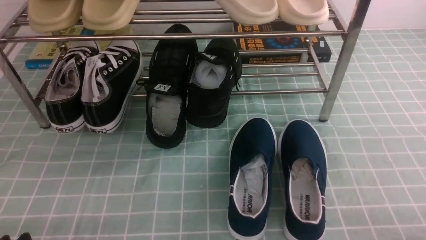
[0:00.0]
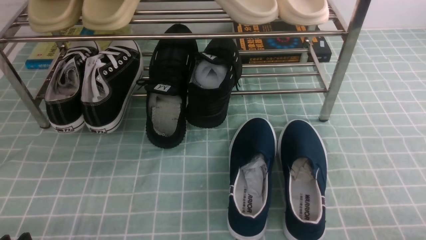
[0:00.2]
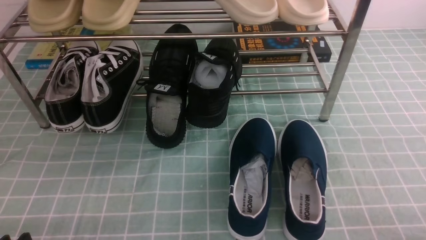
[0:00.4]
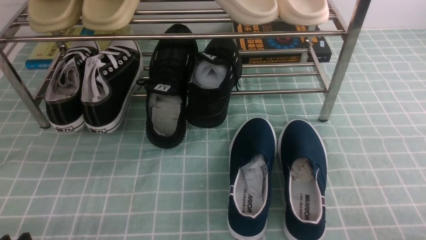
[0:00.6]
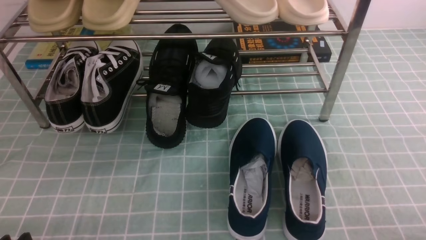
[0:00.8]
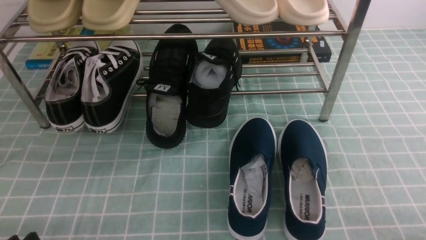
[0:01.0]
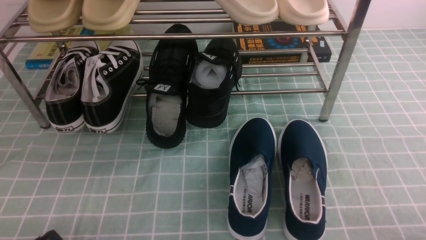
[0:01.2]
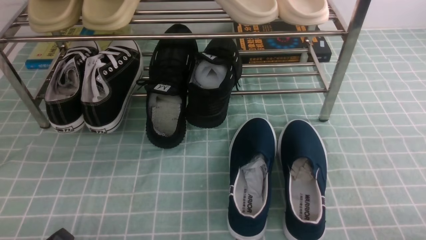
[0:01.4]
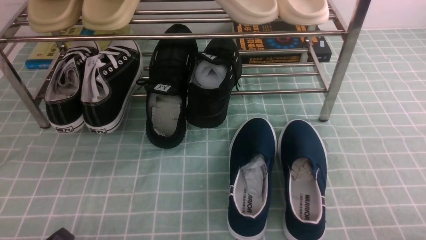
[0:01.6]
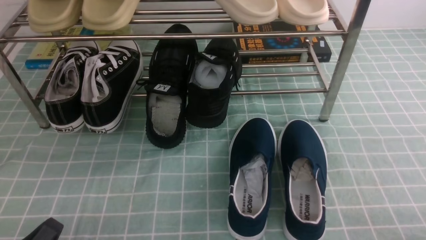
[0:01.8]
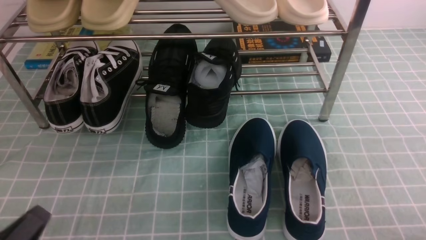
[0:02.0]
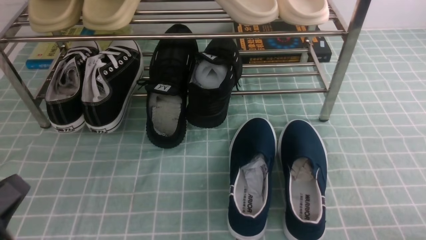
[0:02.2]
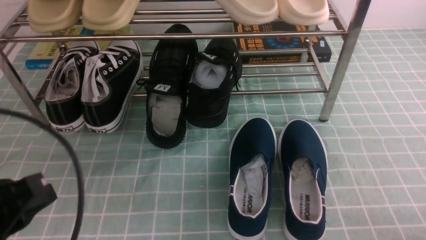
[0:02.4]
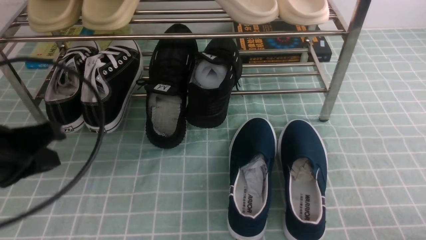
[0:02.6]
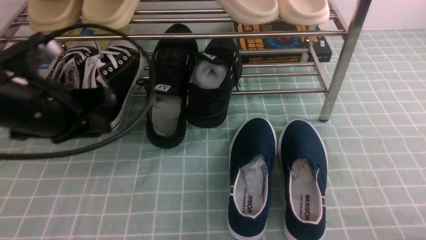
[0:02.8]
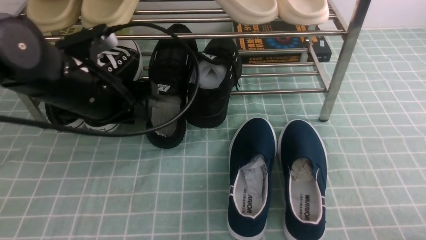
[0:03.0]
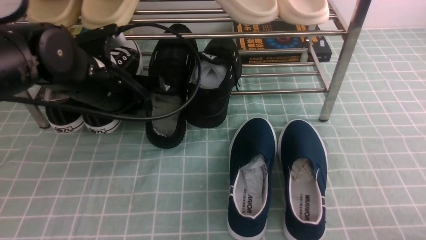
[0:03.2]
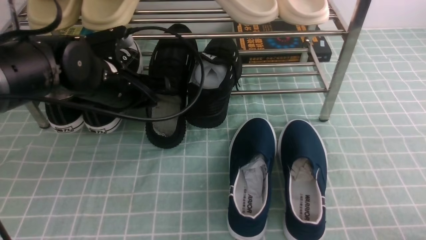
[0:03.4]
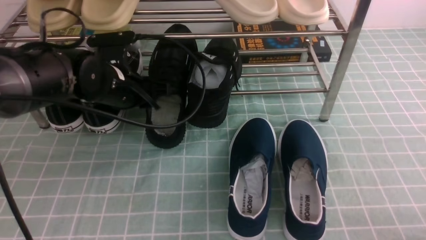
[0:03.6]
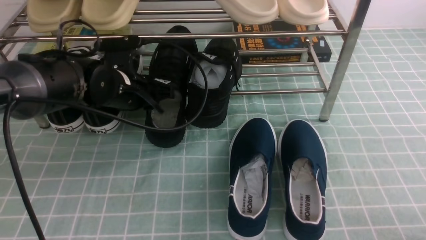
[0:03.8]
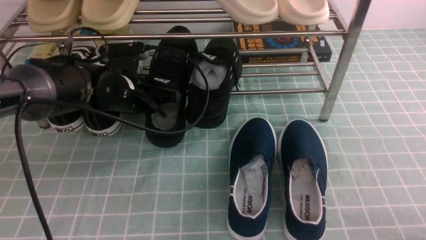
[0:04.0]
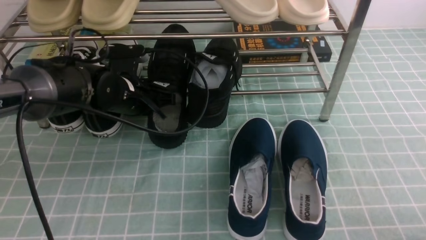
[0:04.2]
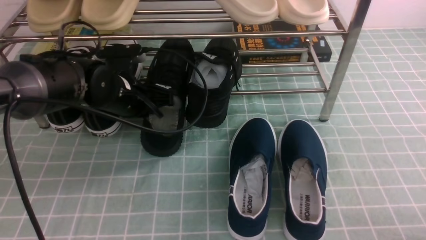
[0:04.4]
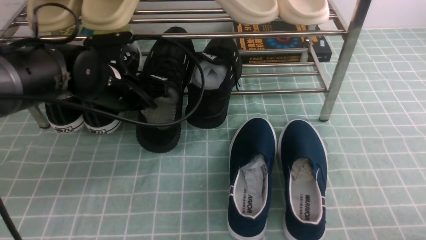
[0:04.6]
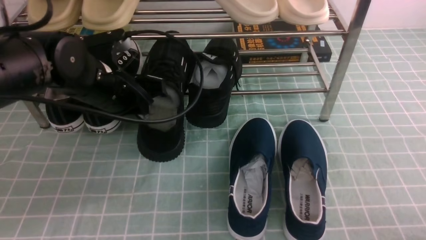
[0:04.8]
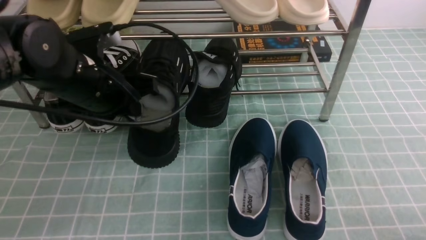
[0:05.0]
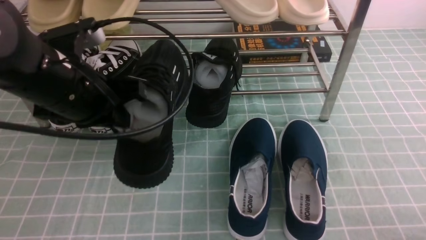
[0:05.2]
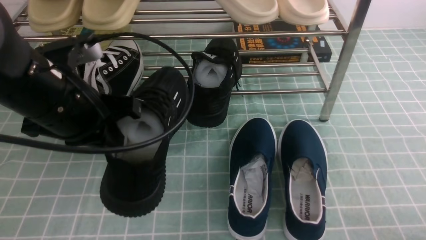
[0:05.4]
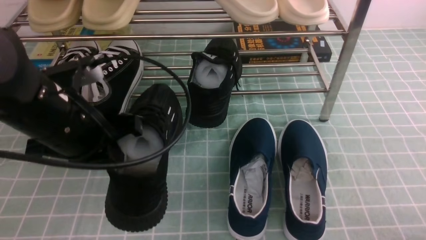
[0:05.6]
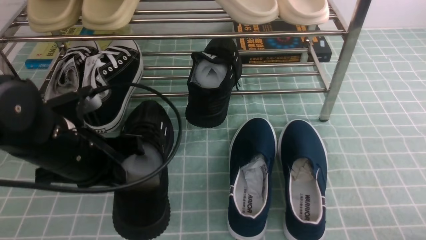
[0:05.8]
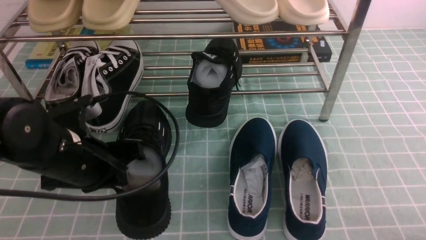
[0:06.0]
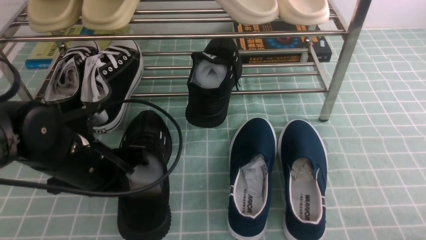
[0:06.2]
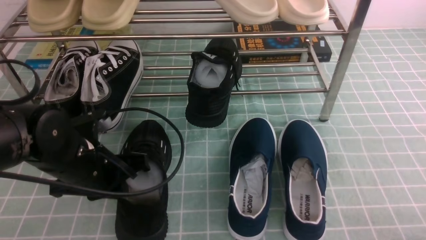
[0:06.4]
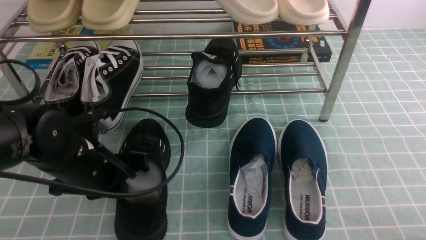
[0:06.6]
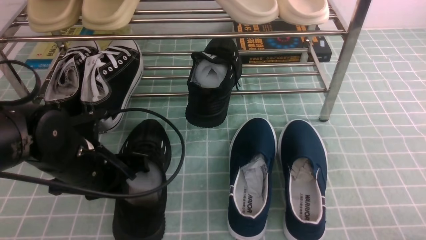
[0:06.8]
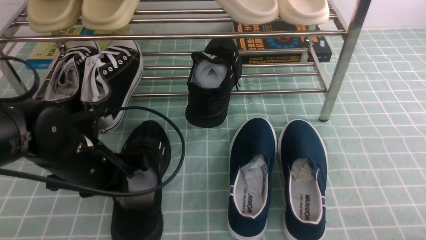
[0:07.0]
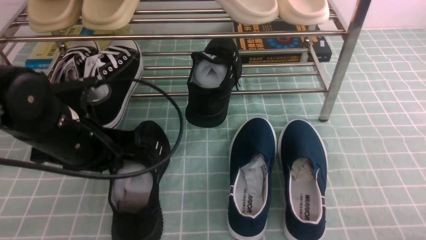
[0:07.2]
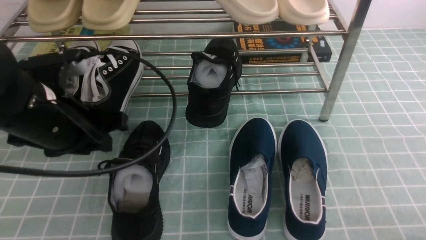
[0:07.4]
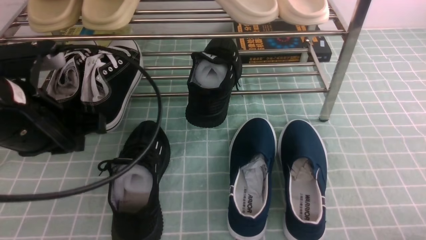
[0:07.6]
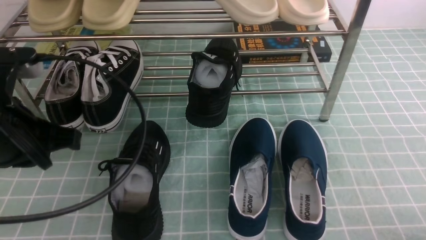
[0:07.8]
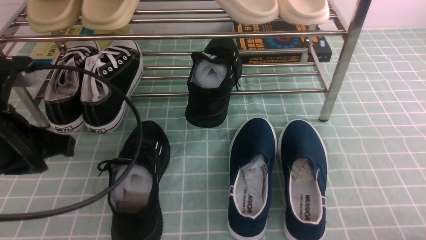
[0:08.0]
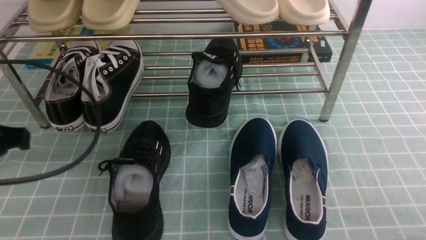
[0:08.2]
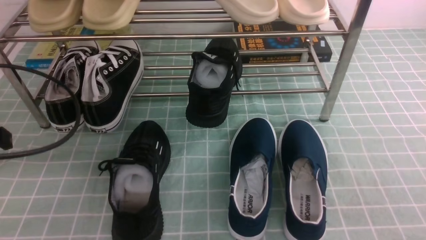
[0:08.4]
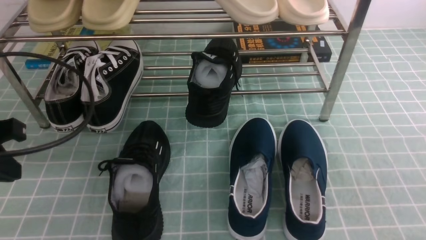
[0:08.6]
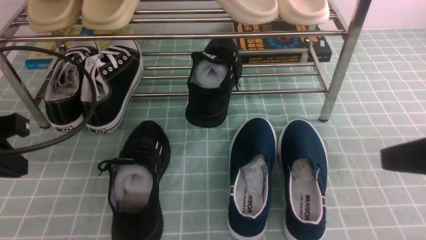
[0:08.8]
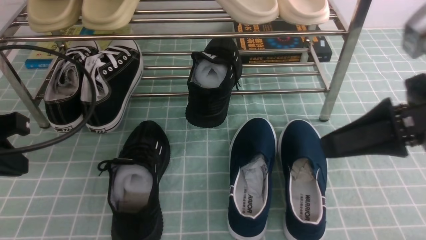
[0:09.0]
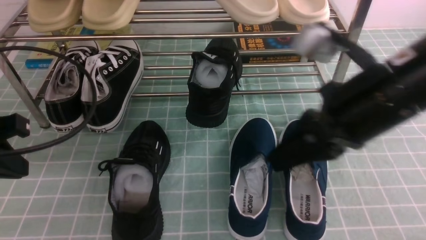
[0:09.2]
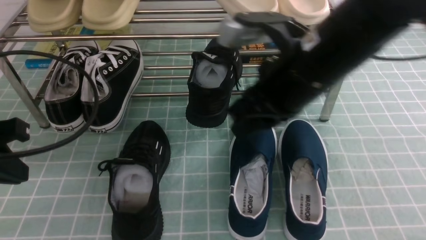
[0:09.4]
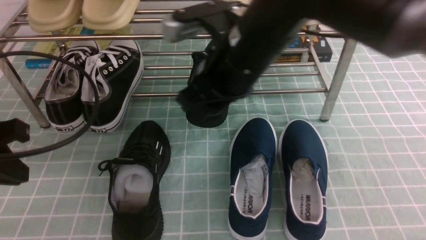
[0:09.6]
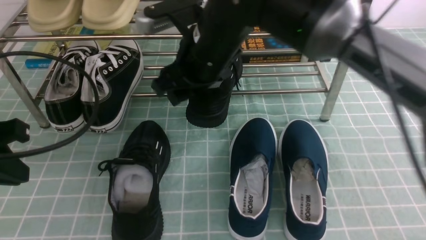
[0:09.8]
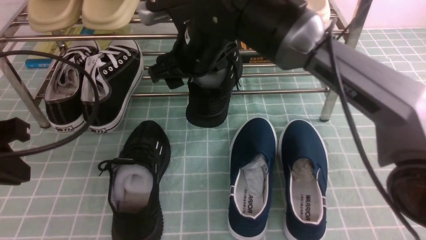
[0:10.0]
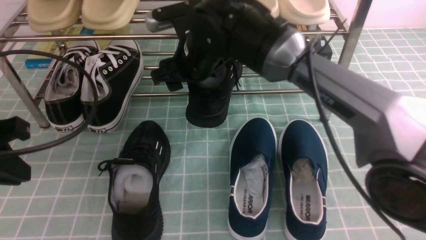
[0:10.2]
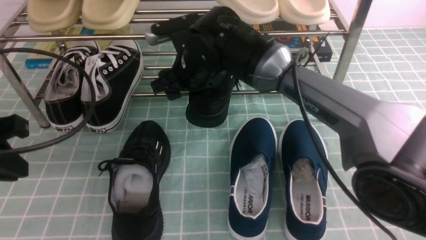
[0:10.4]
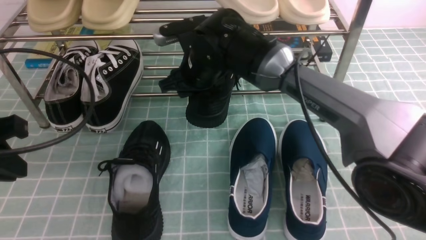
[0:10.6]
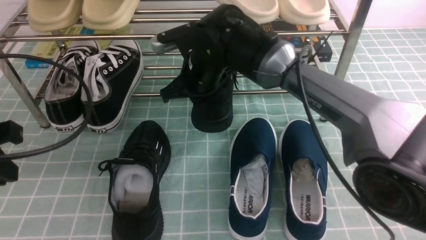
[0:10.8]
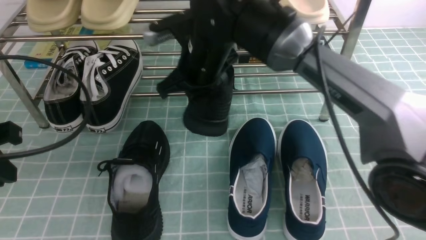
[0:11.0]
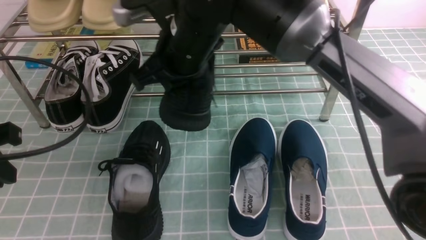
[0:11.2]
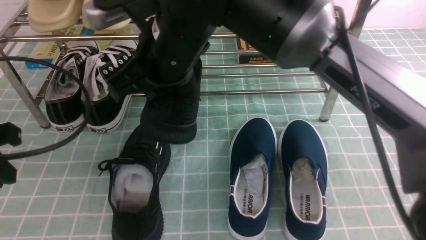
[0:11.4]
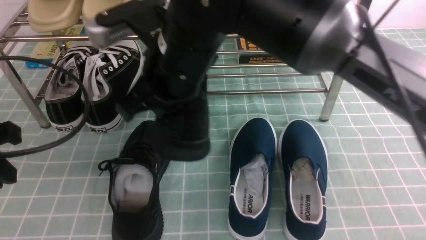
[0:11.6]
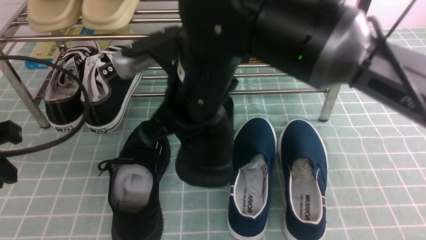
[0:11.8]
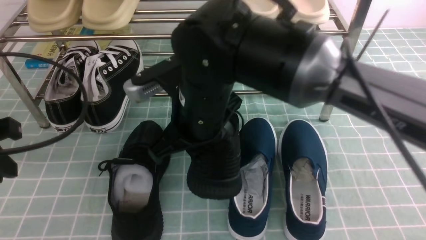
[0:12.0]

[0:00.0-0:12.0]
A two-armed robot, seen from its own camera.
Step, 0:00.0 to 0:04.2: use the left arm to clamp a shoe in the middle of the shoe rack.
Step, 0:04.4 to 0:07.2: Use your left arm to remove the clamped shoe from the shoe rack and put it down.
Step, 0:07.4 to 0:10.6: use the right arm to clamp a shoe in the middle of the shoe rack.
0:01.6 to 0:03.0: The left gripper is displaced forward and upward by about 25 cm, and closes and opens again.
0:03.0 to 0:04.4: The left gripper travels forward and downward by approximately 10 cm, and closes up.
0:04.4 to 0:06.0: The left gripper heads backward, covering about 10 cm.
0:06.0 to 0:07.6: The left gripper shifts some 10 cm upward, and opens.
0:07.6 to 0:09.0: The right gripper heads upward, forward and to the left, covering roughly 25 cm, and closes its fingers. Meanwhile the left gripper shifts about 10 cm to the left, and closes.
0:09.0 to 0:10.4: The right gripper is displaced to the left, forward and downward by roughly 35 cm, and opens up.
0:10.4 to 0:12.0: The right gripper is displaced backward by about 15 cm, and closes.

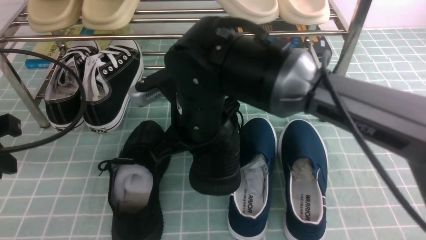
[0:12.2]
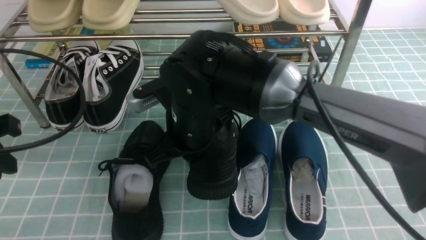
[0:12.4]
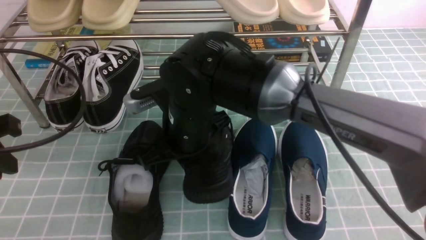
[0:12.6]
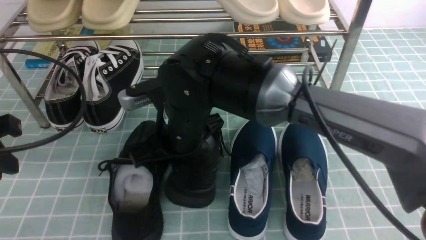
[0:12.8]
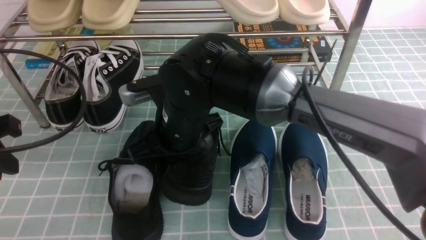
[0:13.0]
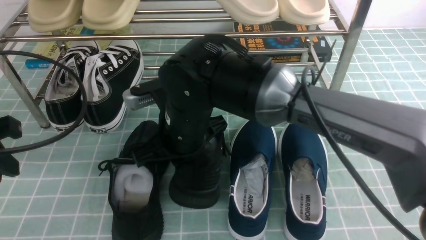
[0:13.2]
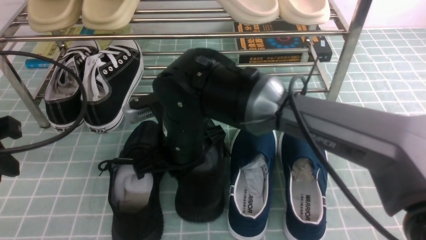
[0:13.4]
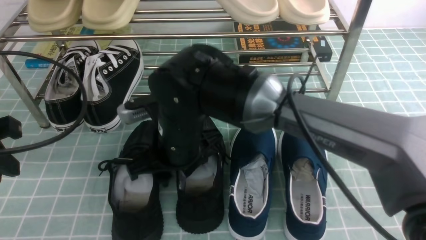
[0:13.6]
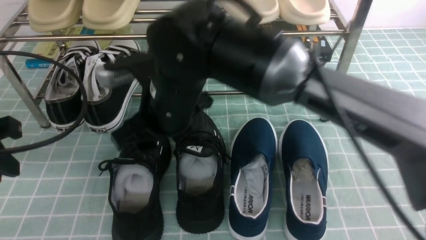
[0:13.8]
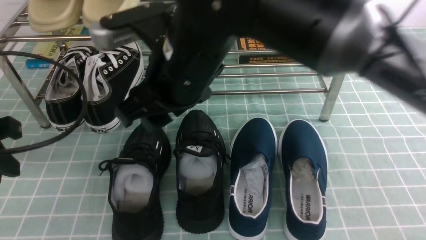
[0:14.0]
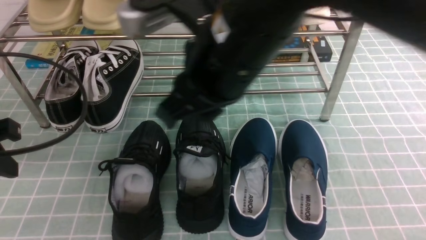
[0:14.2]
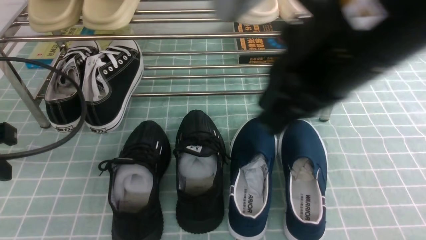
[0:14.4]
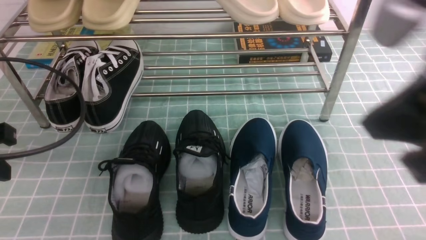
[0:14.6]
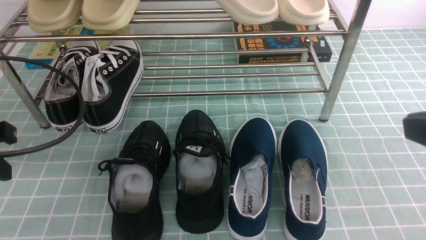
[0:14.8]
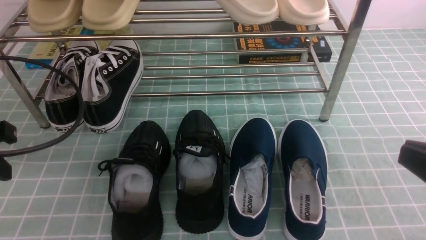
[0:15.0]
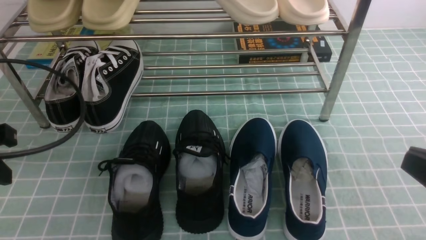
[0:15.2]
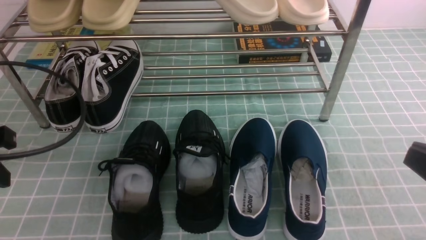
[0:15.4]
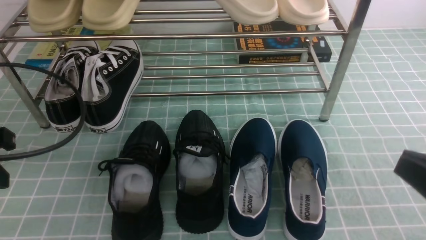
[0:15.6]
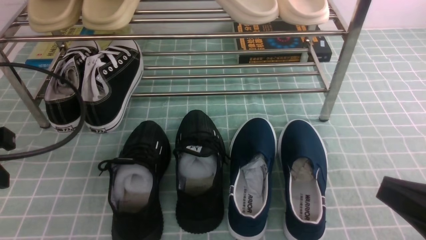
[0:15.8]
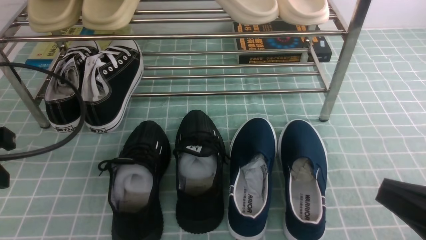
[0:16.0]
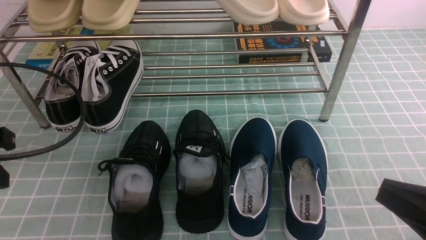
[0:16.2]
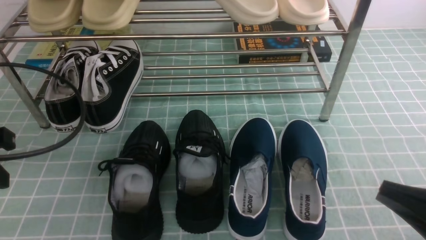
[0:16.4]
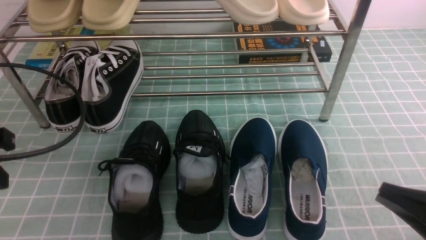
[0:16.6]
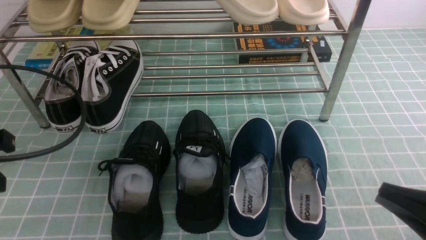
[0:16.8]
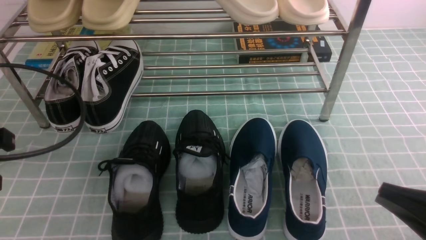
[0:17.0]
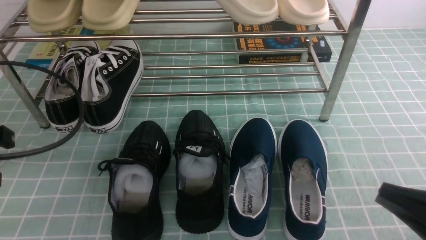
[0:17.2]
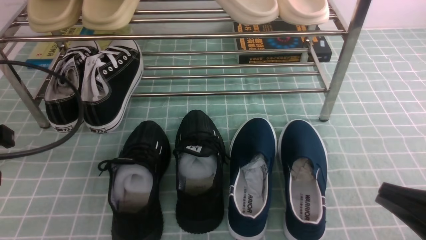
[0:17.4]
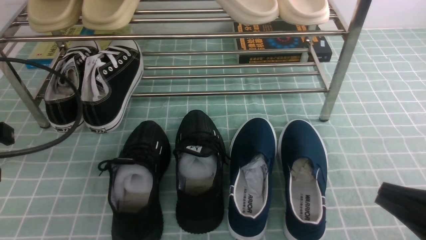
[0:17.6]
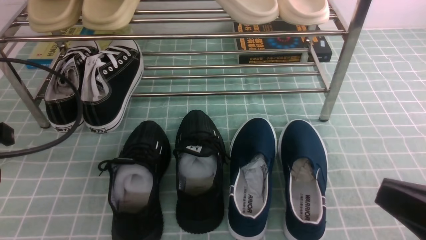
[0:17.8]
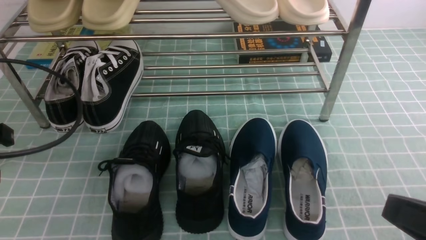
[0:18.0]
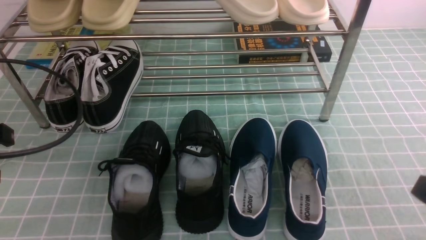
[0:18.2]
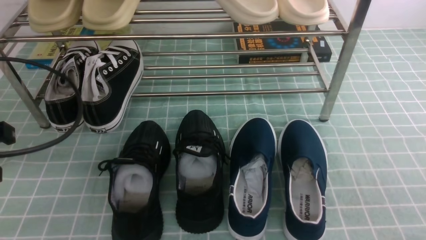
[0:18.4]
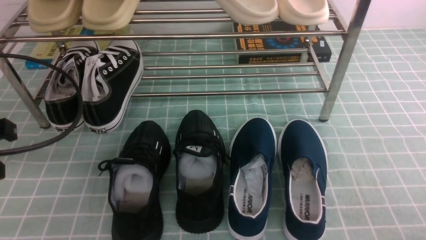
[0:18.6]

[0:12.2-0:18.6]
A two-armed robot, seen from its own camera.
Step, 0:12.2 to 0:13.8: use the right arm to take out the clamped shoe from the shoe rack and put it down.
0:12.2 to 0:13.8: The right gripper opens its fingers.
0:13.8 to 0:15.4: The right gripper is displaced to the right and backward by approximately 35 cm, and closes its fingers.
0:15.4 to 0:17.0: The left gripper closes its fingers.
0:17.0 to 0:18.6: The right gripper goes about 10 cm downward and to the right.
